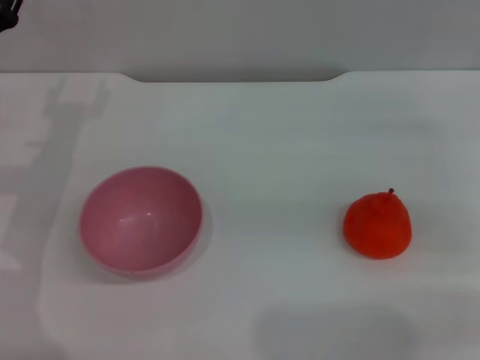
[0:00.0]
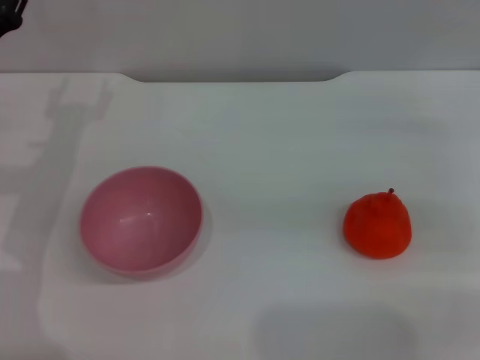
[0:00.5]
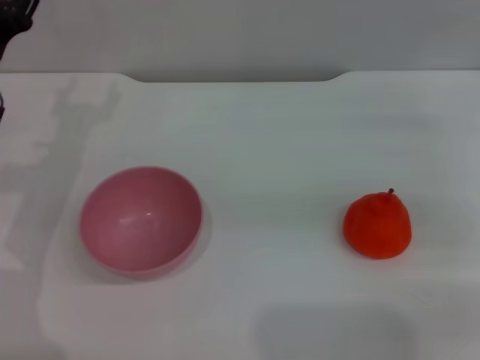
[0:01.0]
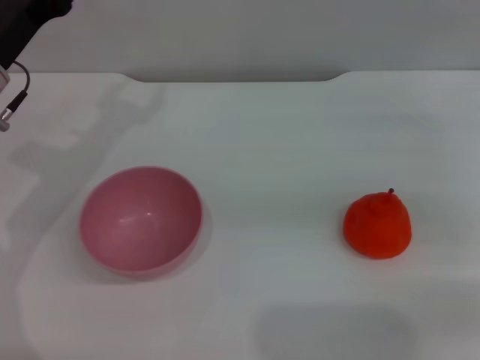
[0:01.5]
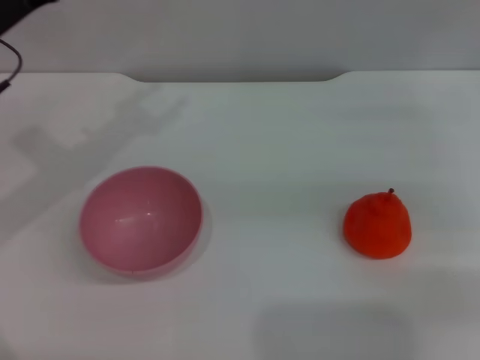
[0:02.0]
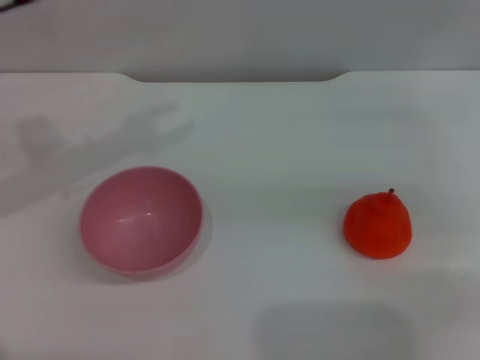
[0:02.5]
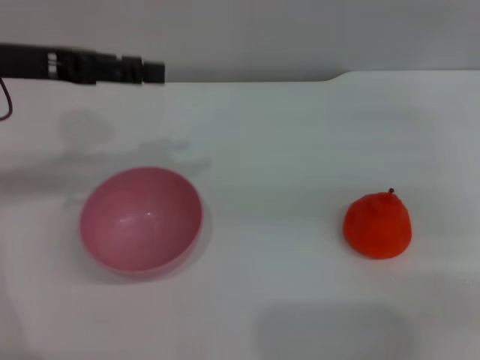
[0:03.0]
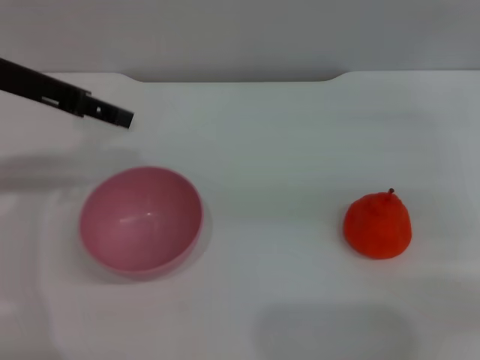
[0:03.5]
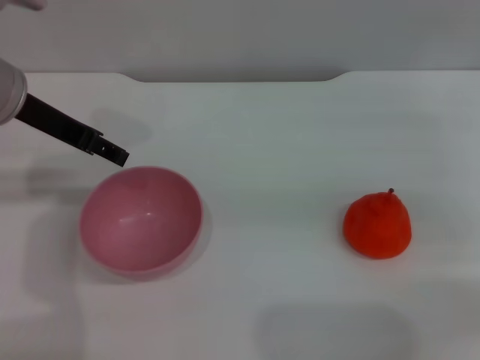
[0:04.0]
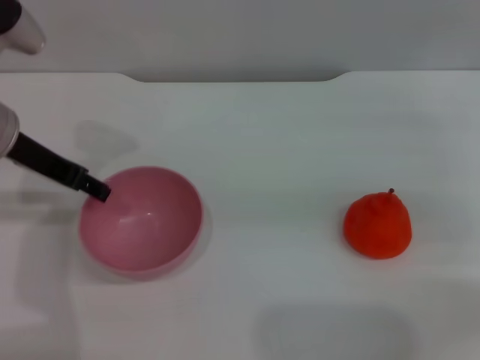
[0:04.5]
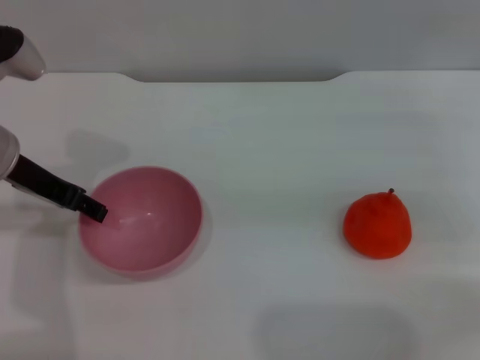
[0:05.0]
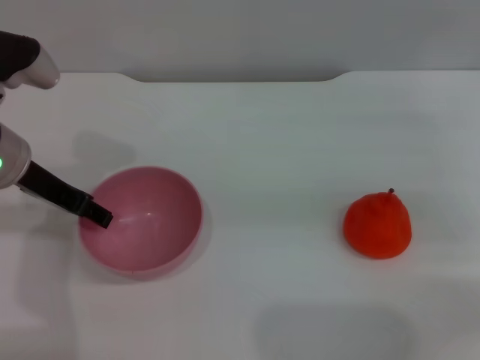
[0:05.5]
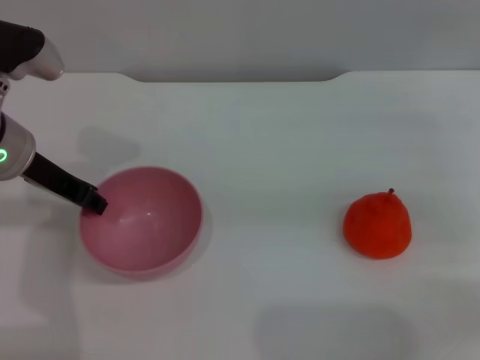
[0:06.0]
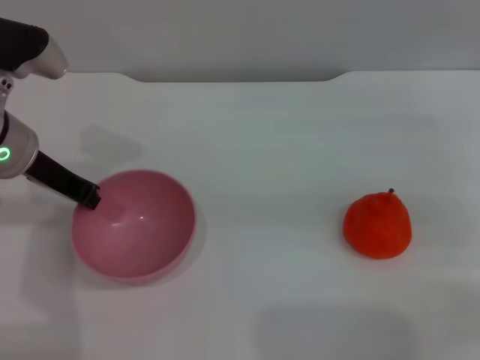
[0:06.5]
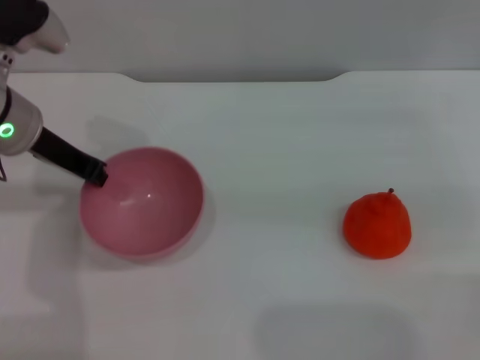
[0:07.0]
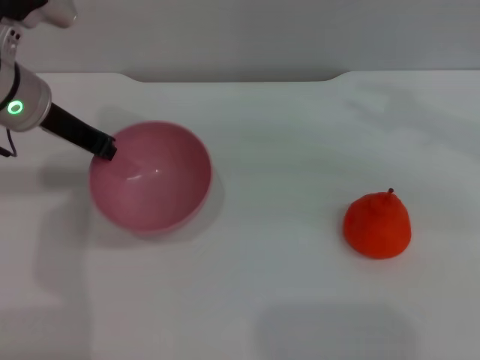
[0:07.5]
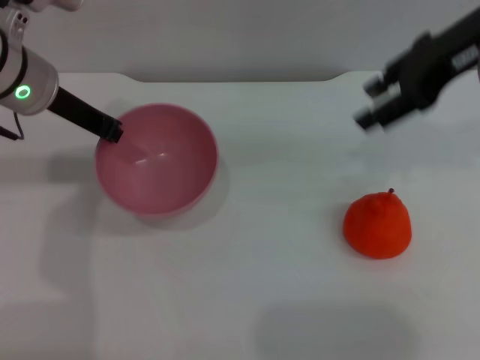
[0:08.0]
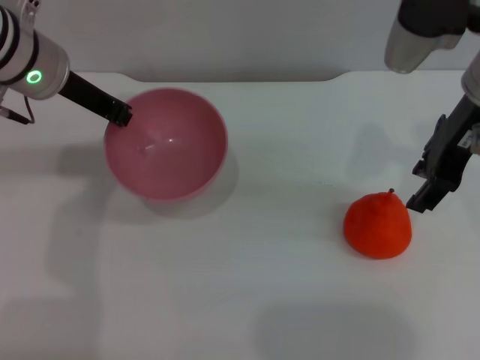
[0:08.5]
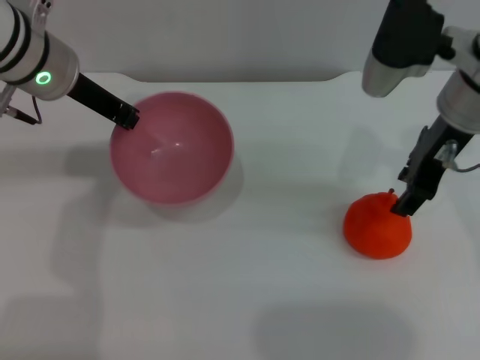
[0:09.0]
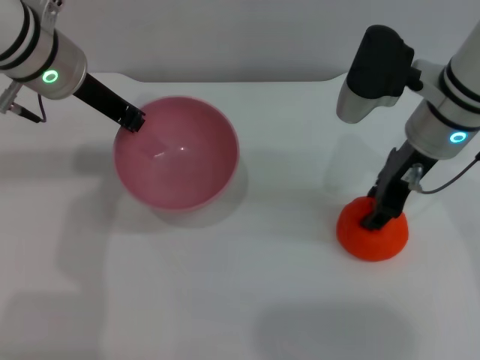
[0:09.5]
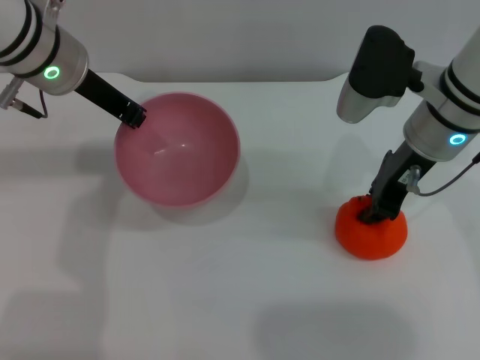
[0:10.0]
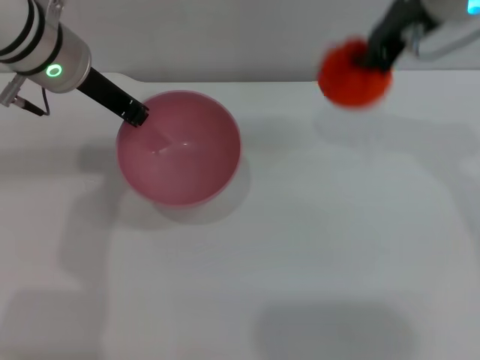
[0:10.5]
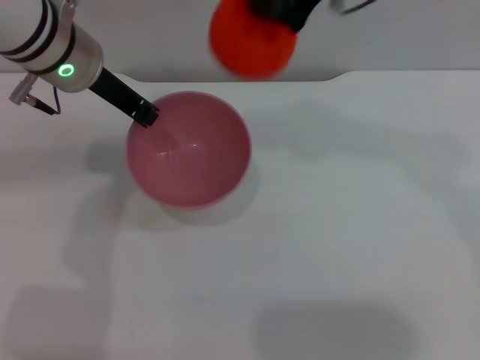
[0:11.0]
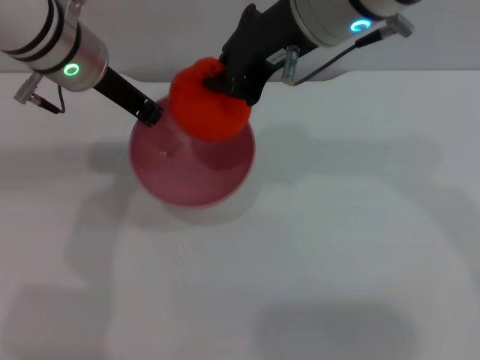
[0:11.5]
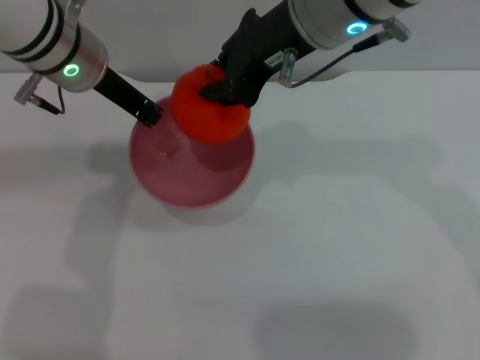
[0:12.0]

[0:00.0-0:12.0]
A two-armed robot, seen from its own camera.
Task of the whole recording: put the orange into the pink bowl and pour it out repeatedly.
Step, 0.0 to 7.0 s: Pick up the bowl with the left gripper.
Step, 7.5 to 10.0 s: Pick up the orange with the right gripper.
2.0 to 4.0 s: The left gripper shifts by some 5 cm.
4.0 to 6.0 s: The left gripper travels downward by approximately 5 cm, and closes up.
6.0 to 8.0 s: The right gripper goes roughly 20 cm upward and to the left. The left gripper ends up some 5 cm from where it was, and closes its fingers.
8.0 to 10.0 s: The right gripper shifts some 10 cm downward, and closes.
10.0 to 12.0 s: The right gripper moves upward and to the left, approximately 15 cm, and closes up.

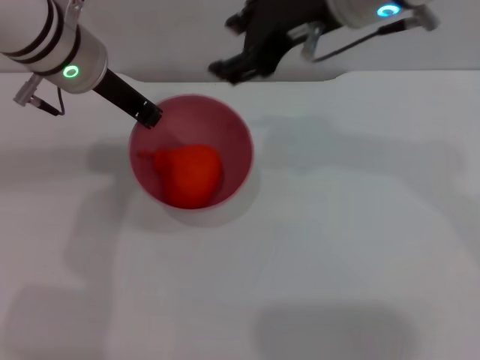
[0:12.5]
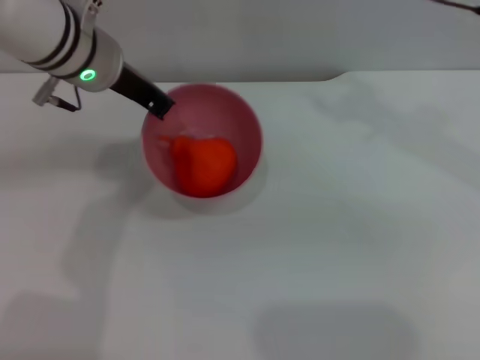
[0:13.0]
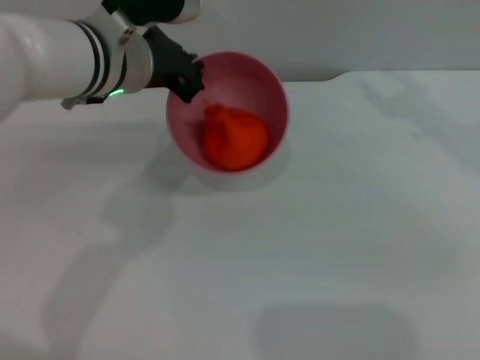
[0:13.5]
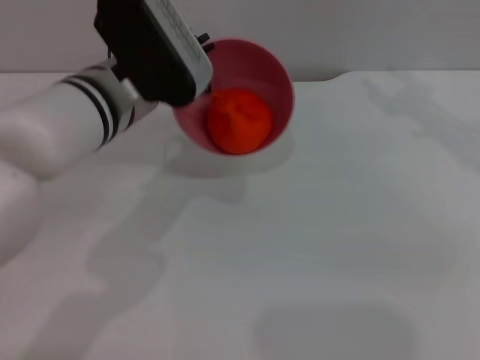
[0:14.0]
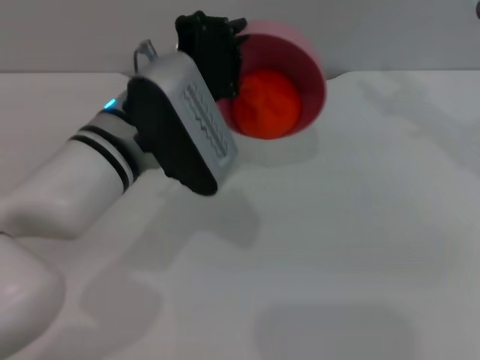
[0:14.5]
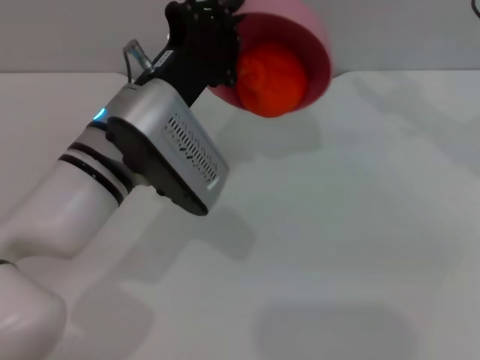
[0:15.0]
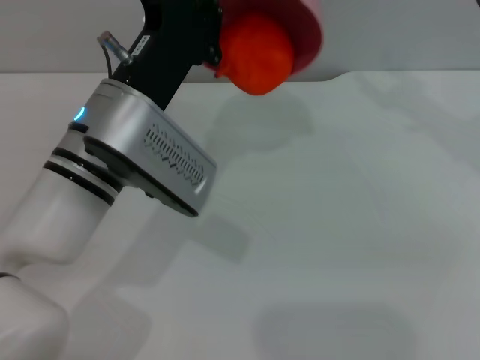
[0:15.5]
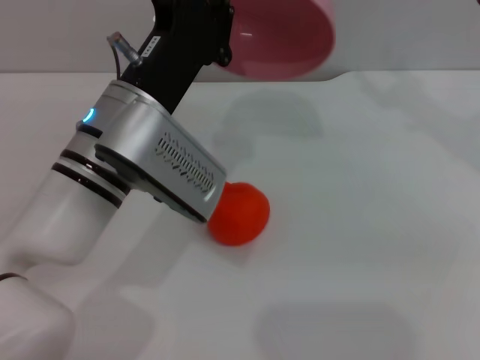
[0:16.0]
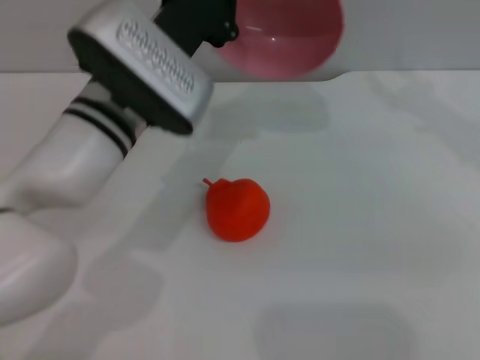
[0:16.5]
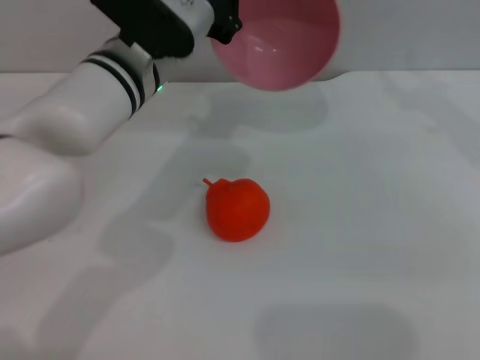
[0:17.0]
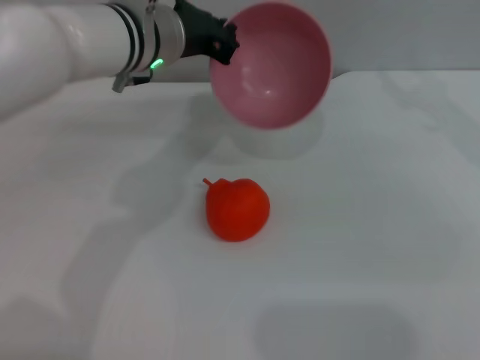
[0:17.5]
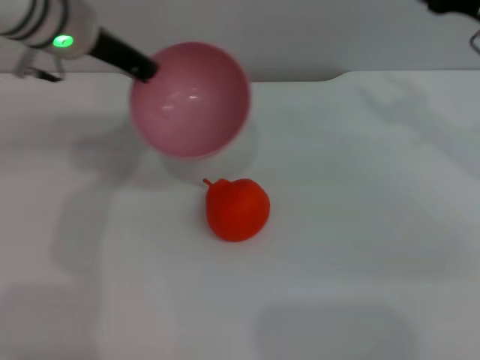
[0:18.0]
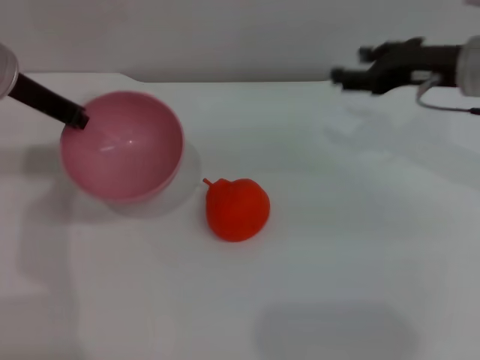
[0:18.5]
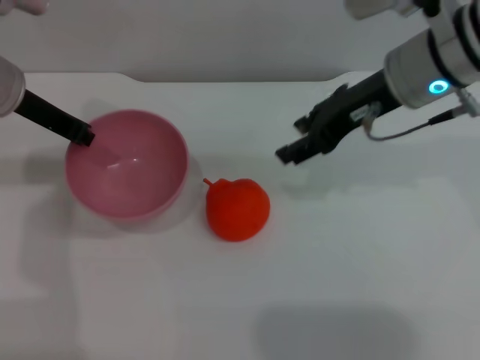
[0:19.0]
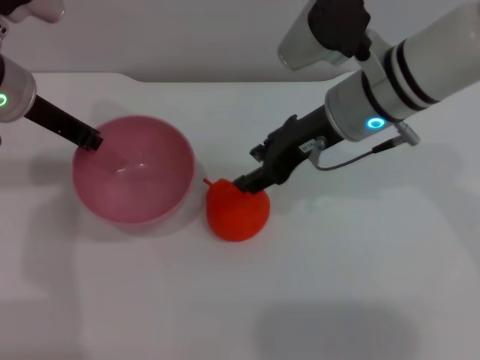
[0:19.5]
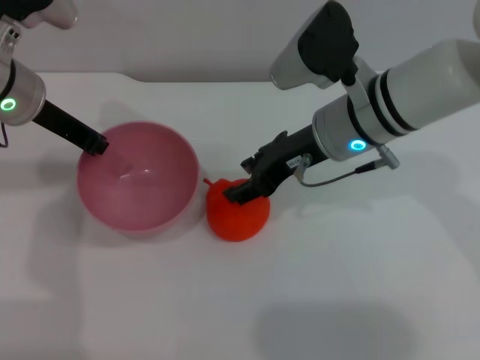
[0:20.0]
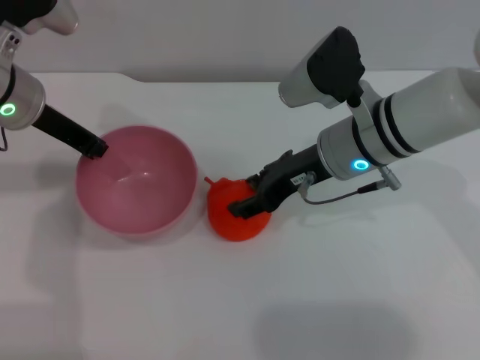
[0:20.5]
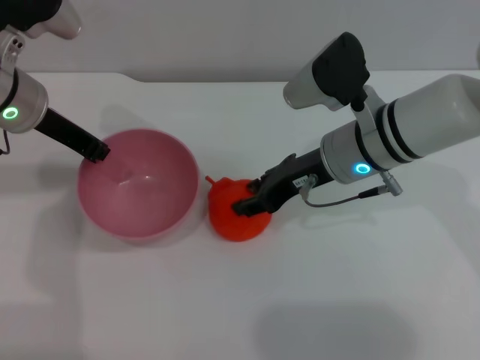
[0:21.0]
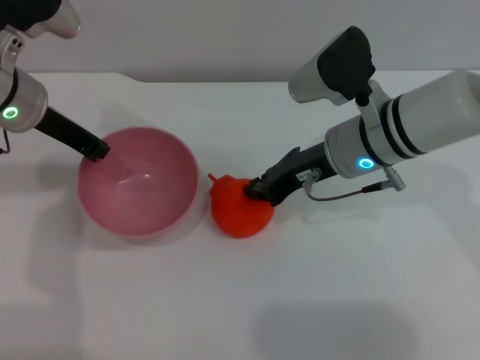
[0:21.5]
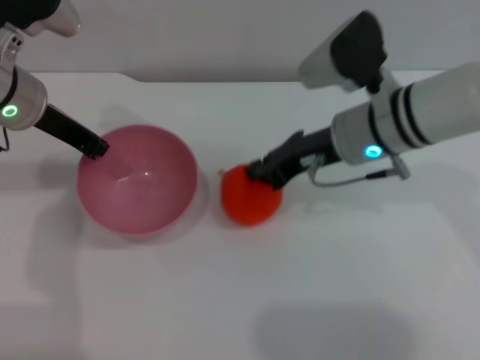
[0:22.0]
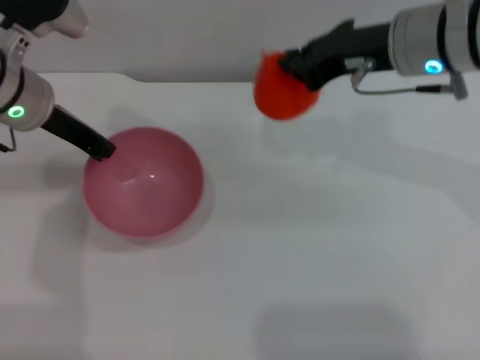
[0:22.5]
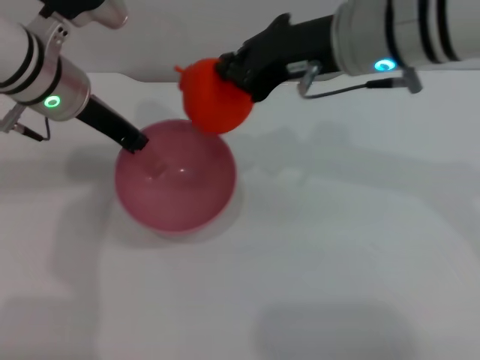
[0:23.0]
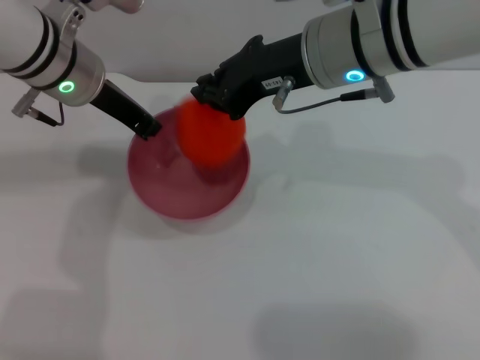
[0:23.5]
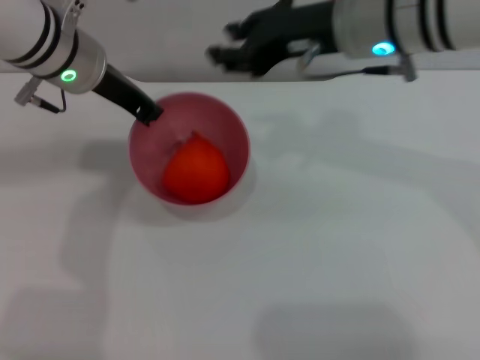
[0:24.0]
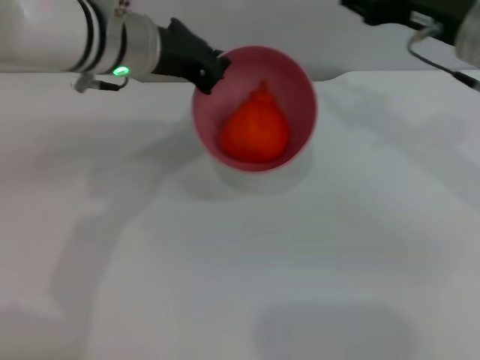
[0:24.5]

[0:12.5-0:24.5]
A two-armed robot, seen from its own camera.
Task of the whole recording: put the orange into the pink bowl and pour it out repeatedly.
Step, 14.0 to 17.5 s: Pour the orange out of the bowl.
Step, 18.0 to 22.0 s: Pick up the orange with the right gripper.
Step, 22.5 to 24.0 s: Place the orange into the bowl.
12.5 to 14.5 s: The right gripper travels to the right and downward by some 20 cm. Meanwhile the left gripper is displaced backward, downward and to the right by about 10 cm.
16.5 to 18.5 s: The left gripper heads to the left and forward, covering approximately 15 cm, while the right gripper changes place by roughly 5 cm.
18.5 to 20.5 s: The right gripper heads to the left and downward, covering about 15 cm.
20.5 to 22.5 s: The right gripper is displaced upward by about 10 cm, and closes up.
22.5 to 24.5 s: The left gripper goes approximately 10 cm to the right. The right gripper moves to the right, some 5 cm, and opens.

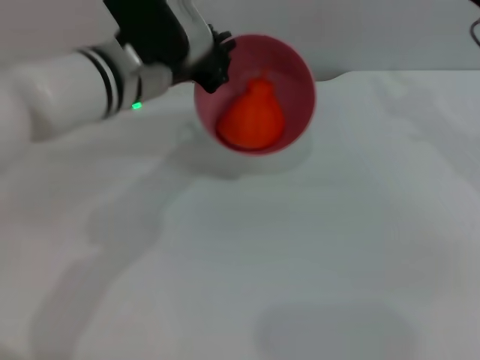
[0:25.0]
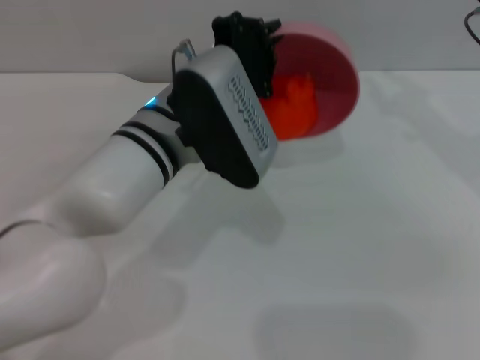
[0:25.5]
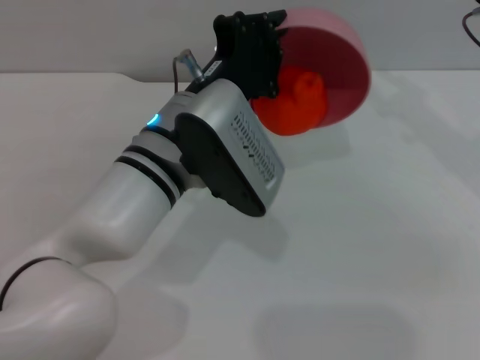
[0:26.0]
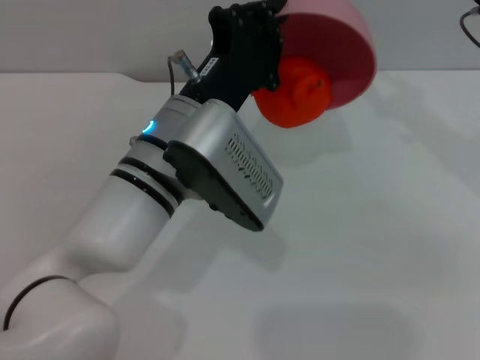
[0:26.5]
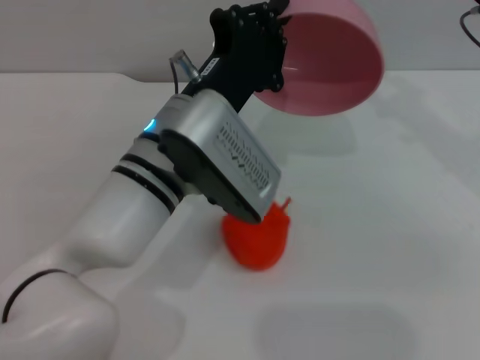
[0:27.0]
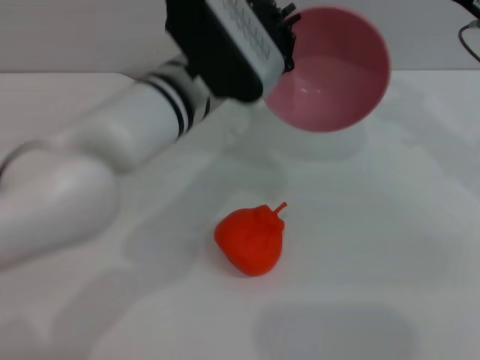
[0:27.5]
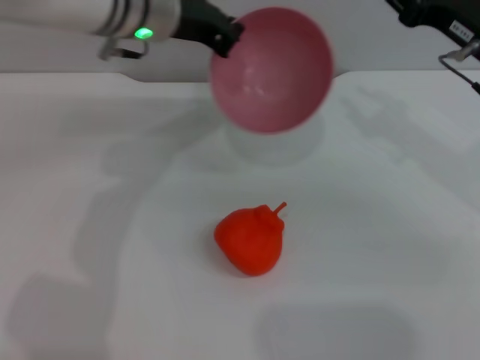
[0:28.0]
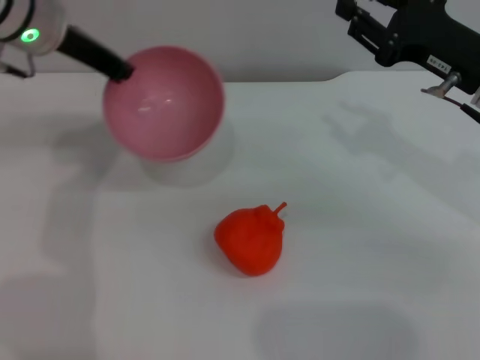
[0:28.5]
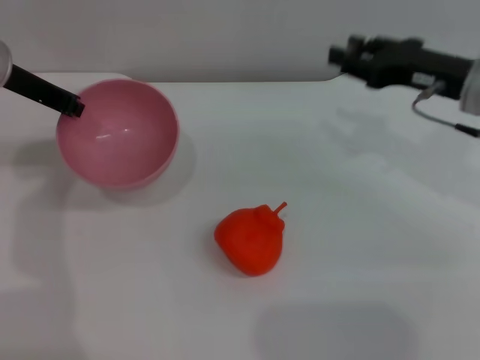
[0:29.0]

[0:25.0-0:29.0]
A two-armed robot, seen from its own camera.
Task of the whole recording: put the orange into the pink bowl and pour it out repeatedly.
Step, 25.0 to 26.5 s: Pour the orange out of the bowl.
25.0 to 27.0 s: The left gripper heads backward, covering approximately 10 cm.
27.0 to 29.0 s: The left gripper shifts some 25 cm to the left and forward.
